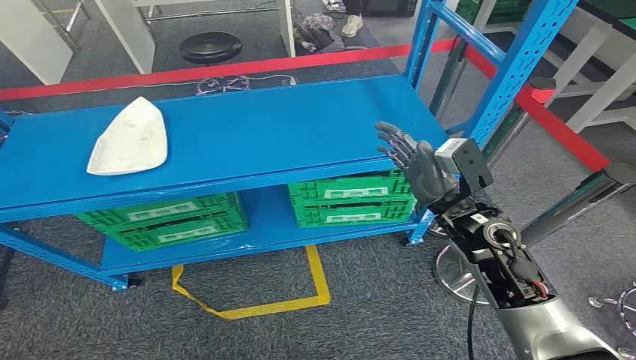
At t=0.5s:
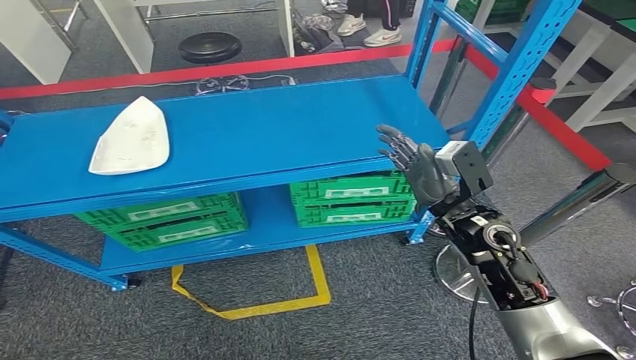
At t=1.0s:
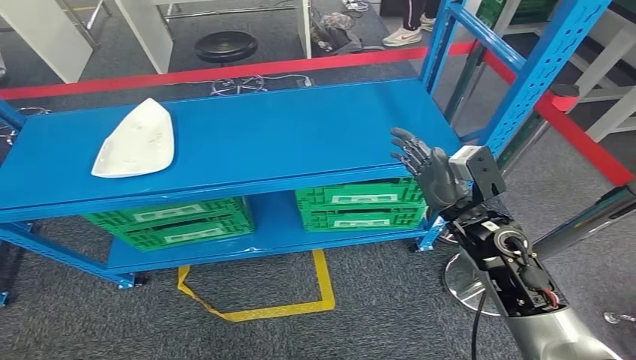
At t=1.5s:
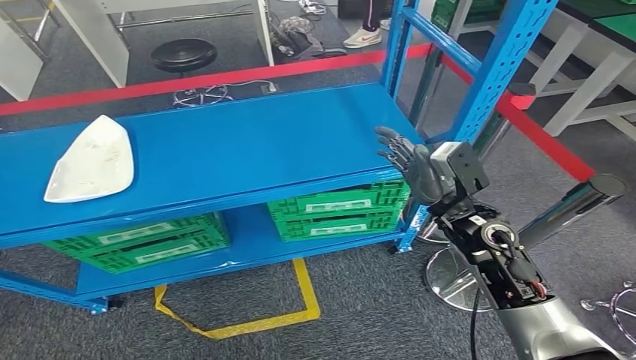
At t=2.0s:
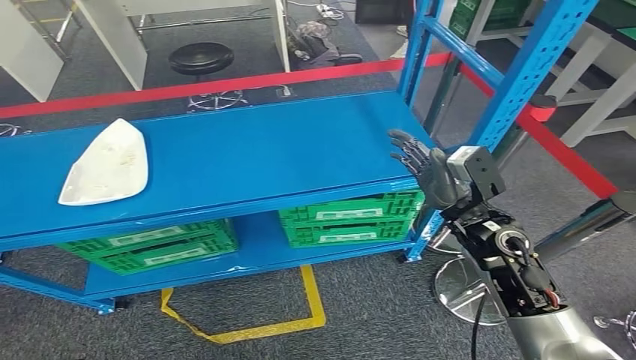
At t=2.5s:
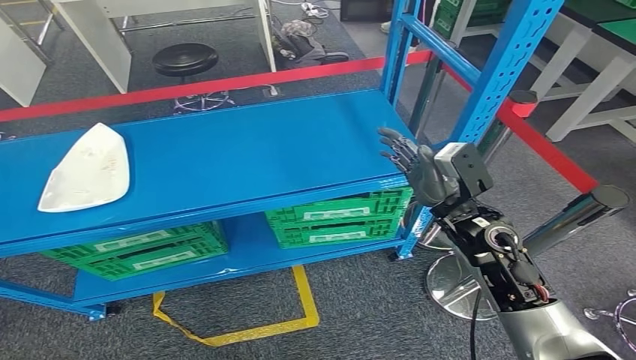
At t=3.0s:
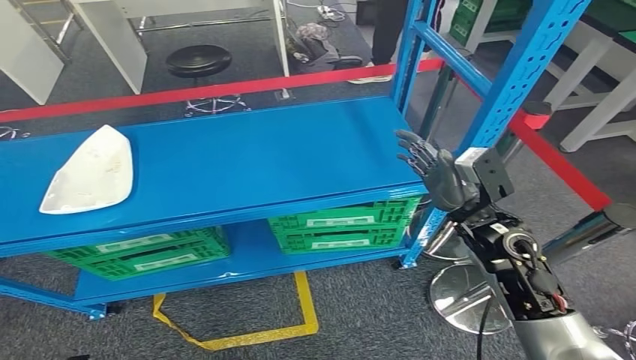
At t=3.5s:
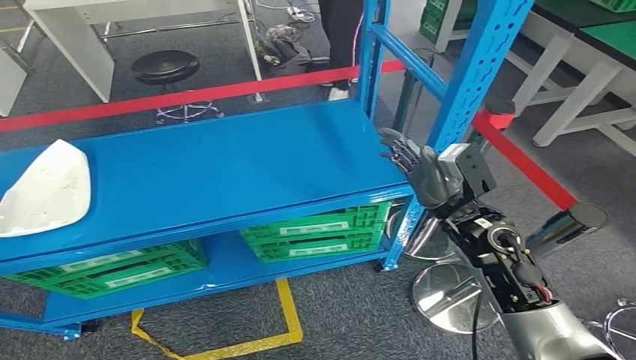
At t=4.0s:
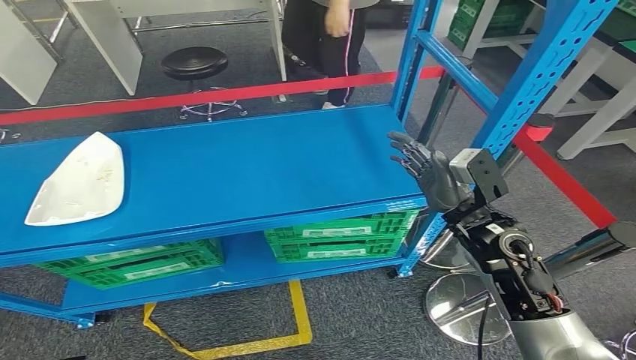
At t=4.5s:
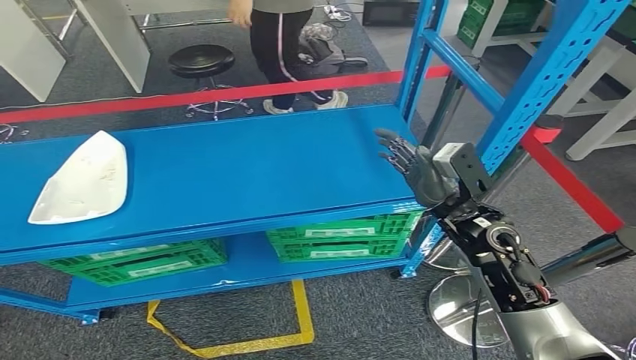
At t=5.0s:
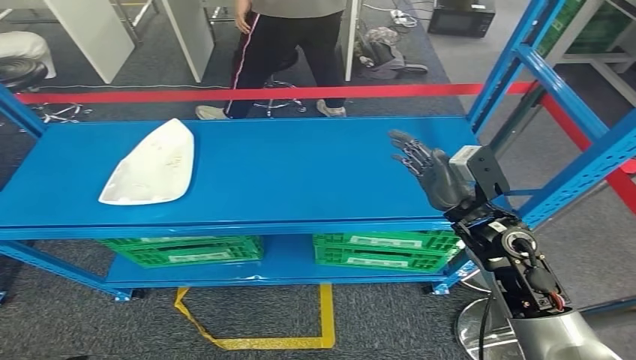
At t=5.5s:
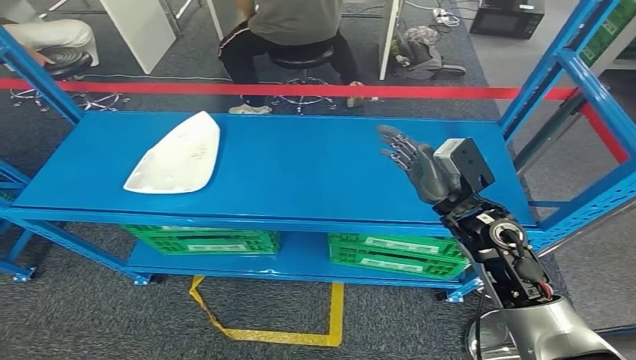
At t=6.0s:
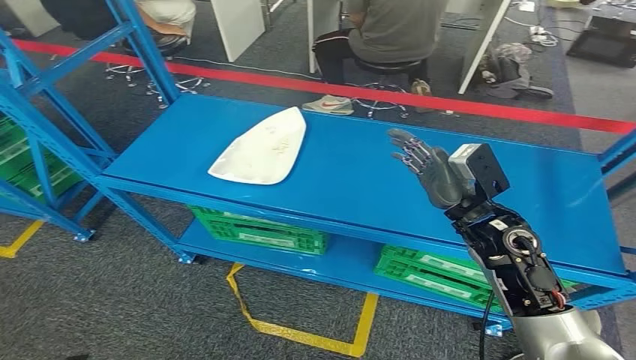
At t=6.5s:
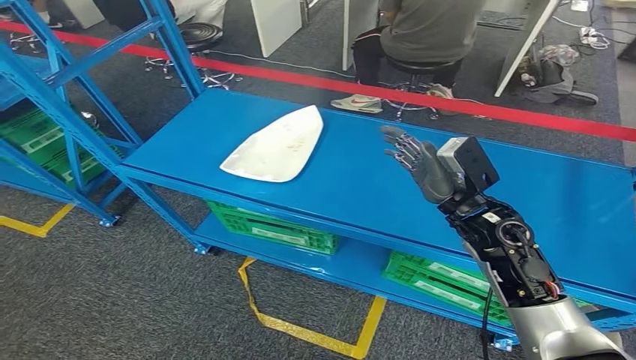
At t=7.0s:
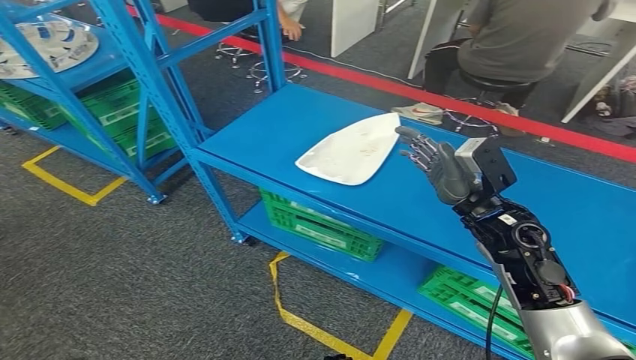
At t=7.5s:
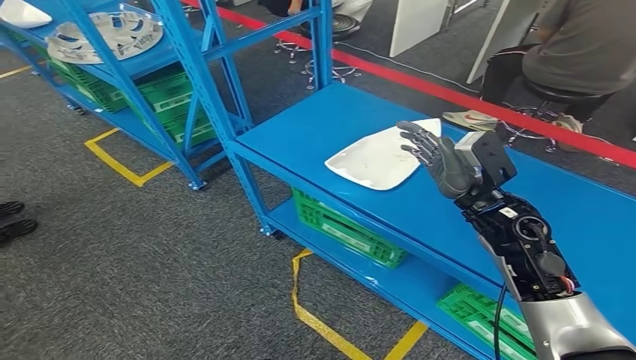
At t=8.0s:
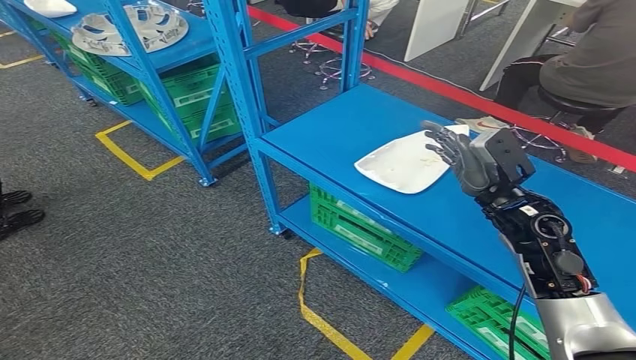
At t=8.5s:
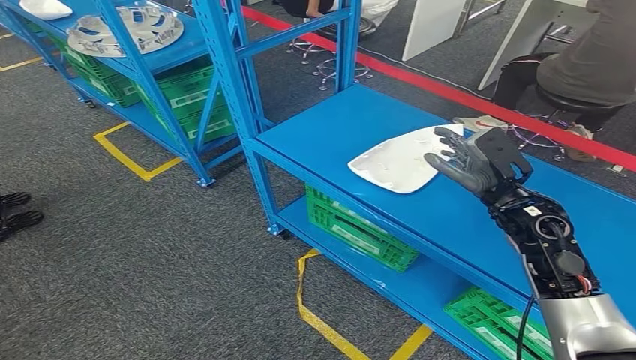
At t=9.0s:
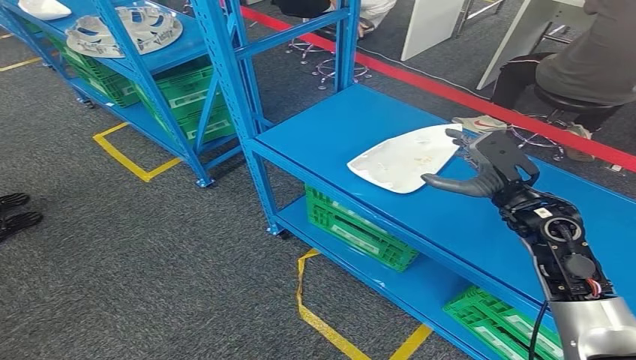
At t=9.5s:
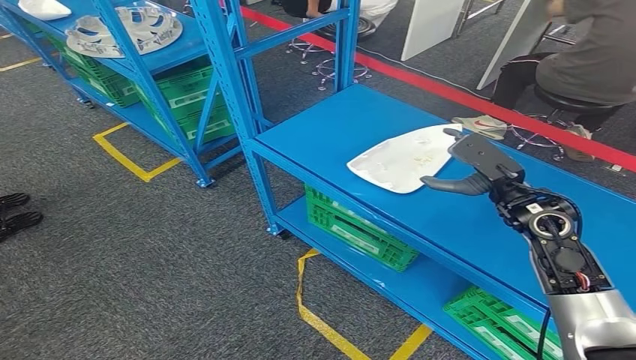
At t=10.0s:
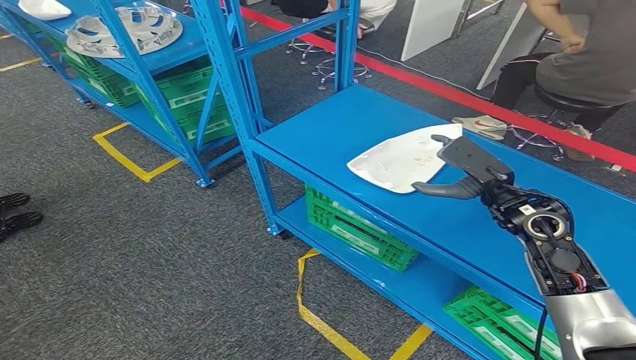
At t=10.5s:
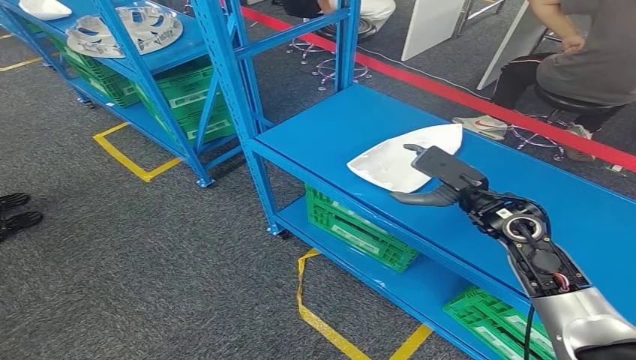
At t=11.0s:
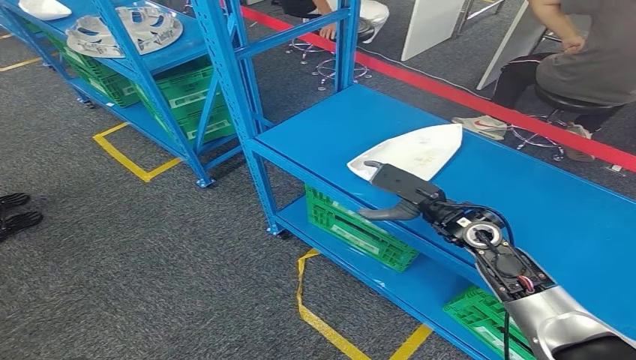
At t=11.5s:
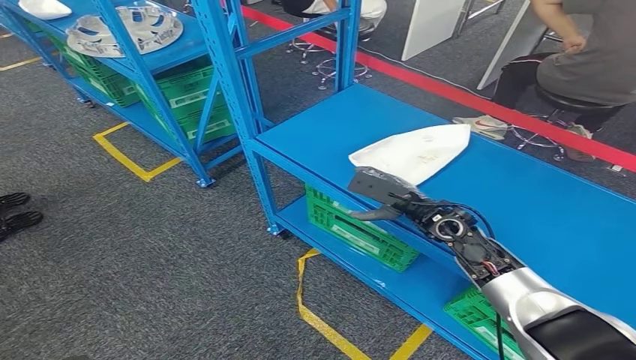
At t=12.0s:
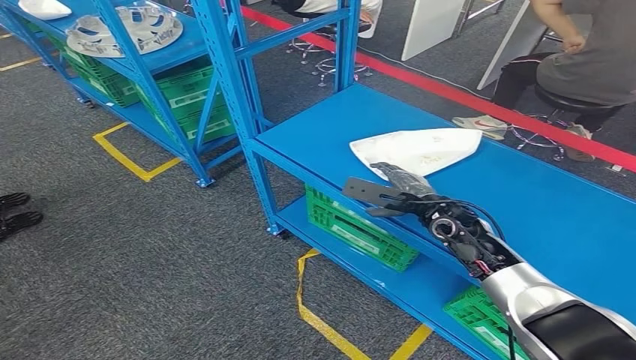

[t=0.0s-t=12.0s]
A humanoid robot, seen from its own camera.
t=10.0s to t=12.0s: The right hand travels to the left and downward by approximately 10 cm.

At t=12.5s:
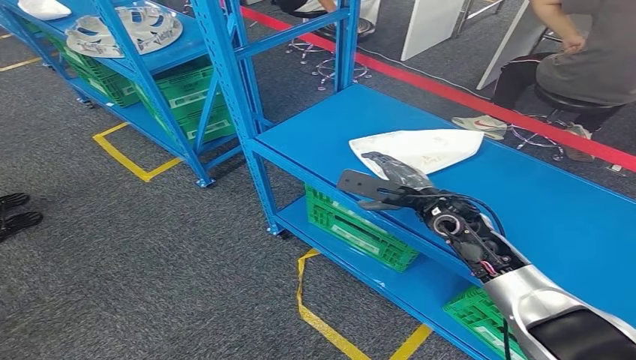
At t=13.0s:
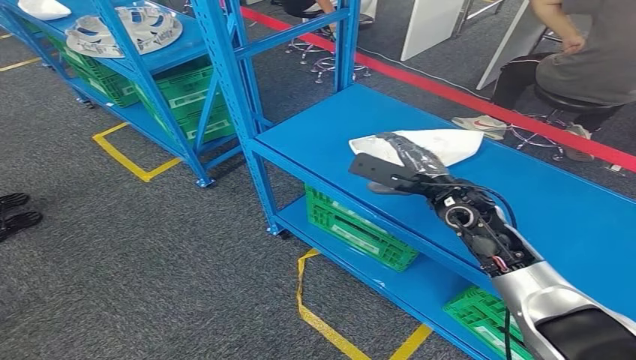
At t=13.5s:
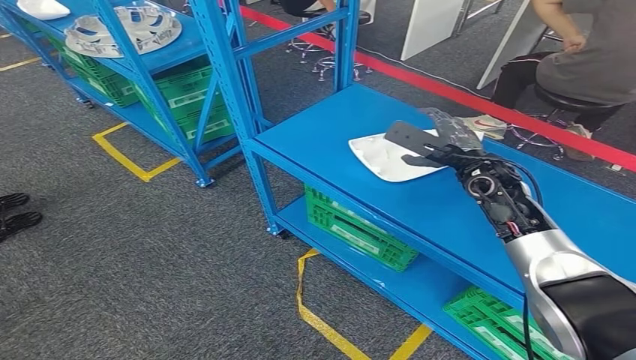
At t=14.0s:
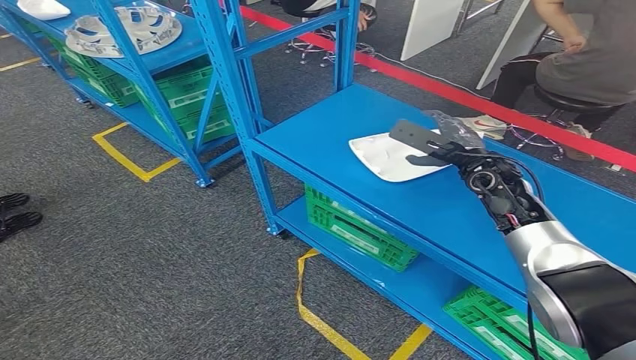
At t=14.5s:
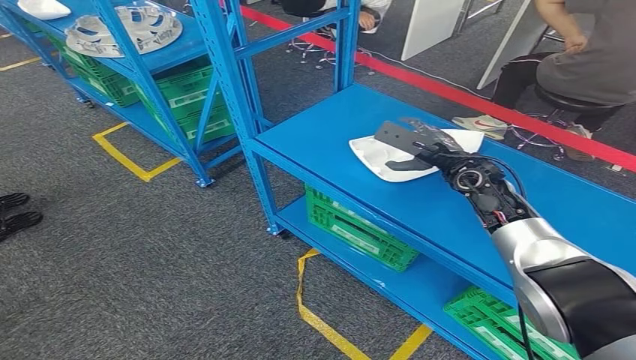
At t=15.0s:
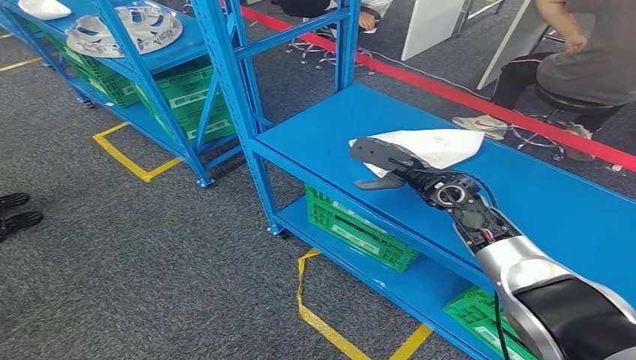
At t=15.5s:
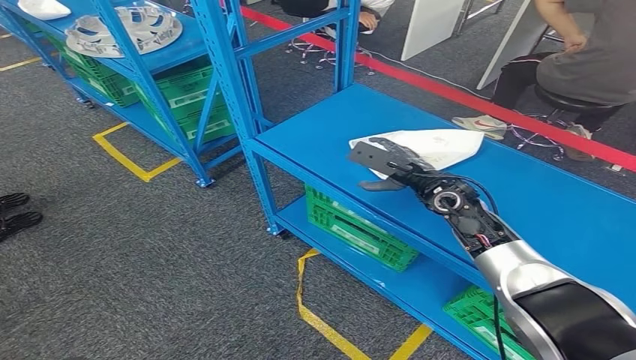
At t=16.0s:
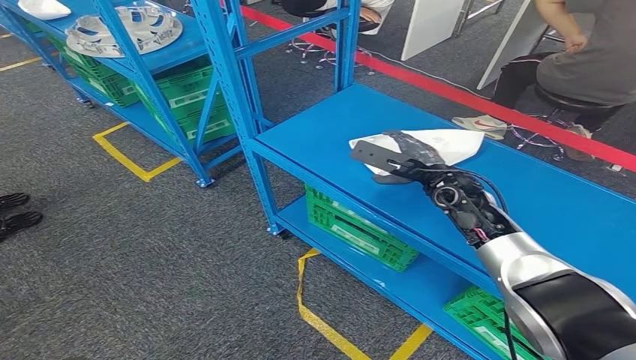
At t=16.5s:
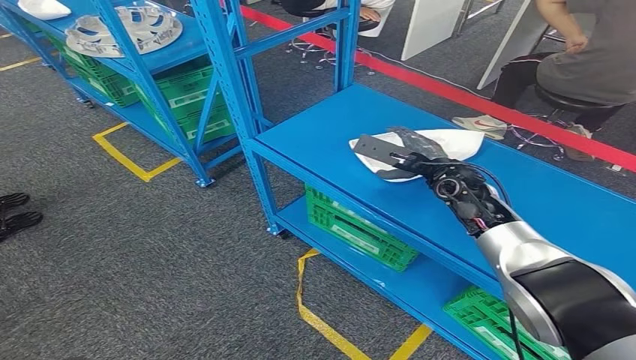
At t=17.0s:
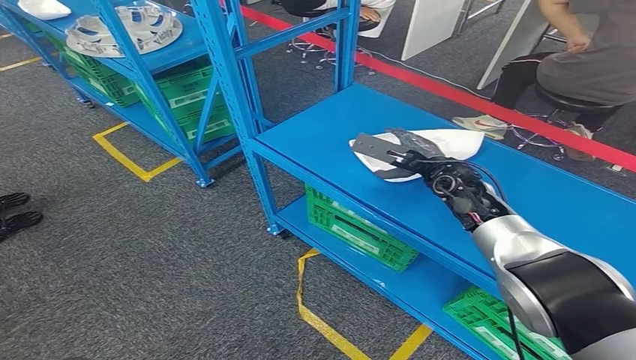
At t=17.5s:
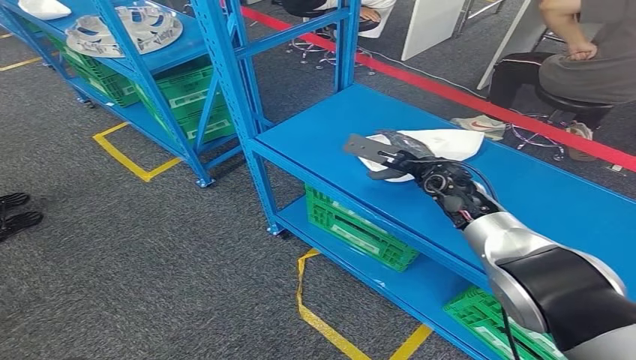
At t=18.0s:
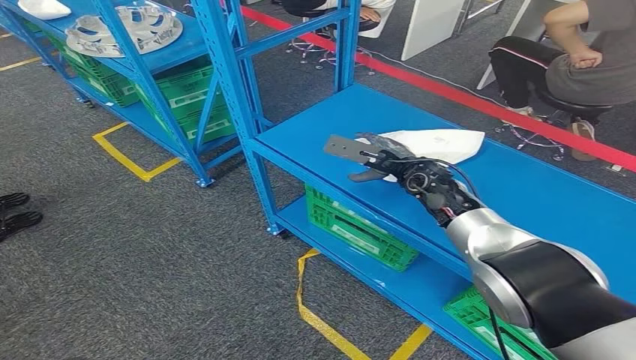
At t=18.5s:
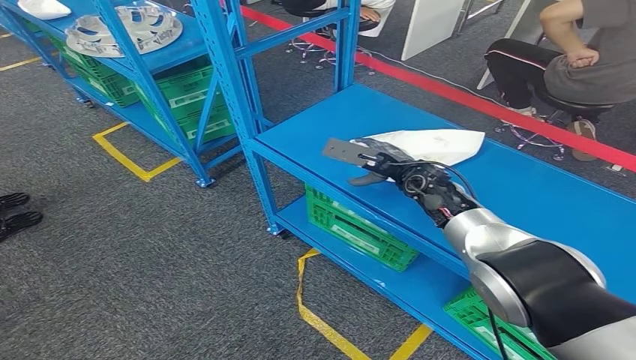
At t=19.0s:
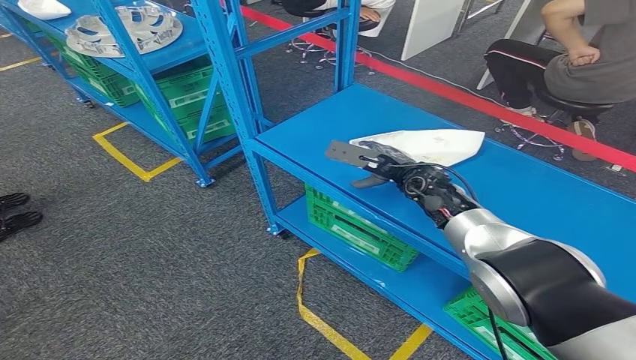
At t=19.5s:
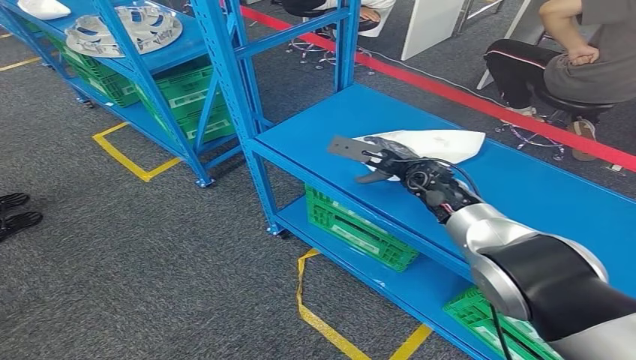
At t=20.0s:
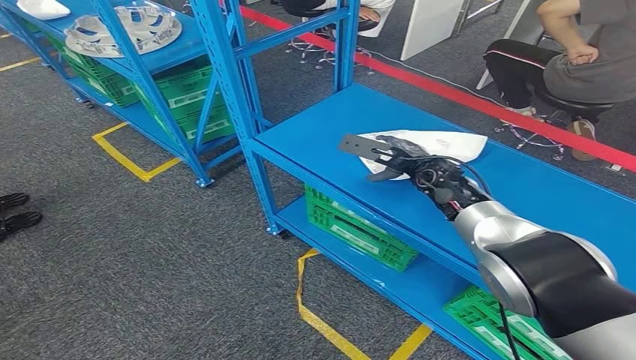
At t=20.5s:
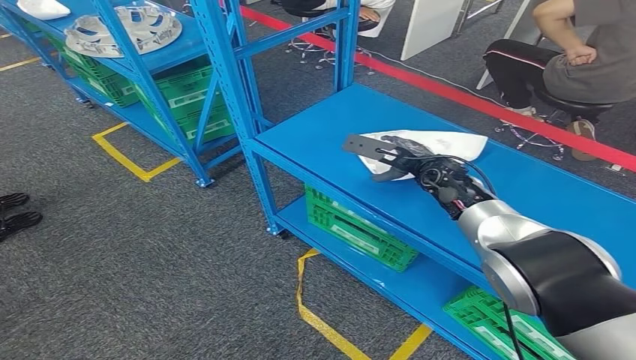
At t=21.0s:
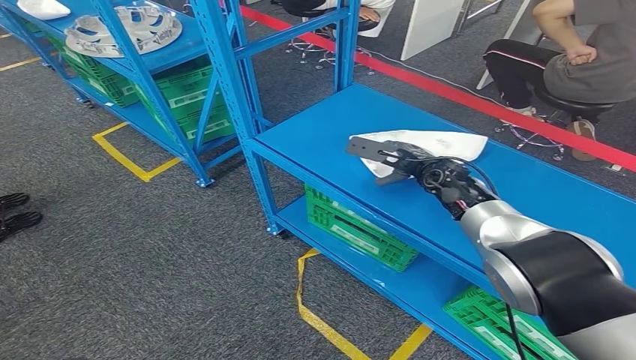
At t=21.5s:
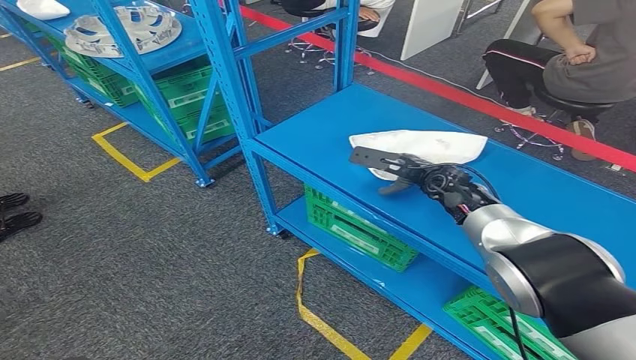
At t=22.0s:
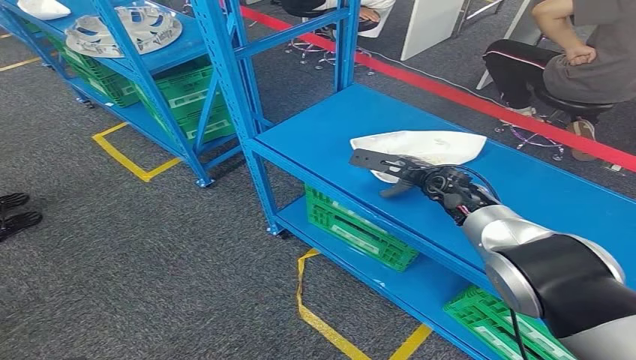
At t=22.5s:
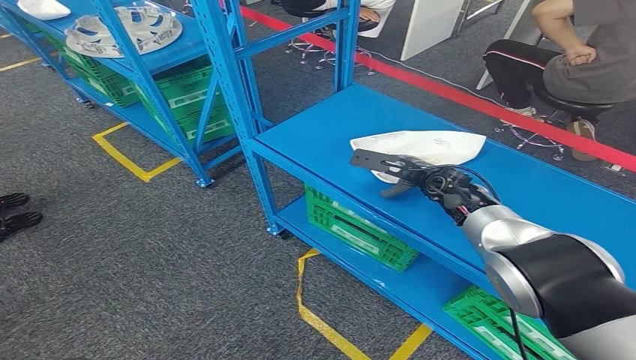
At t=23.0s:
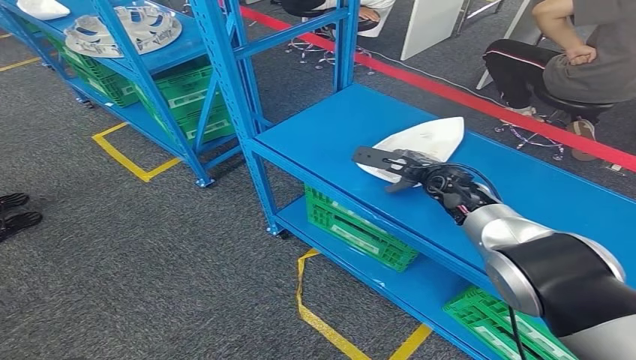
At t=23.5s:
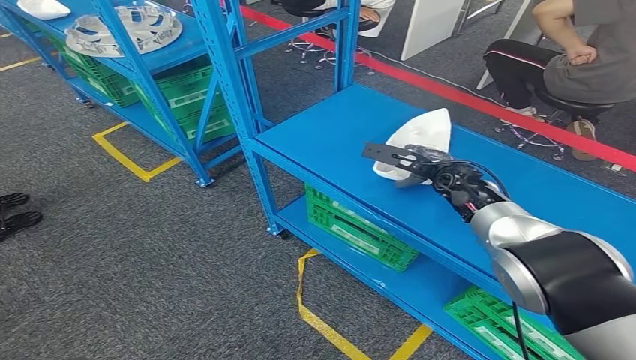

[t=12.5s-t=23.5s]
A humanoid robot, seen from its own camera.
t=12.5s to t=14.5s: The right hand goes about 10 cm to the right and forward.
t=16.0s to t=20.0s: The hands move only a little.
t=20.0s to t=23.5s: The hands stay close to where they were, moving slightly.
